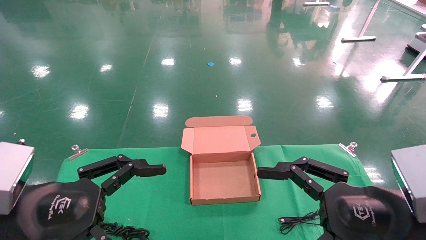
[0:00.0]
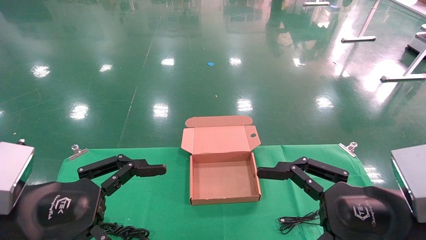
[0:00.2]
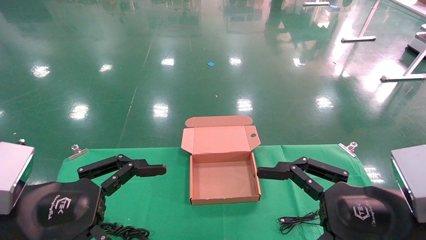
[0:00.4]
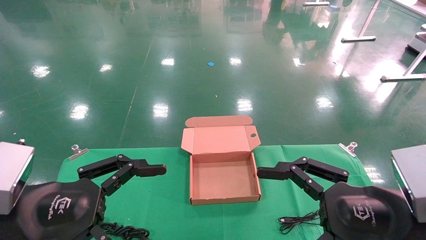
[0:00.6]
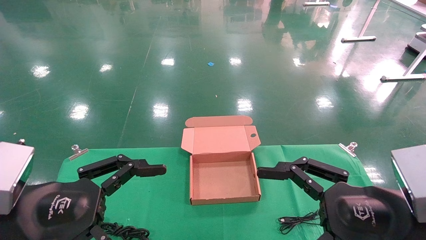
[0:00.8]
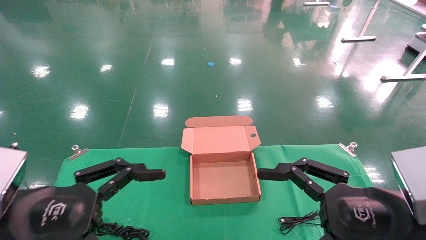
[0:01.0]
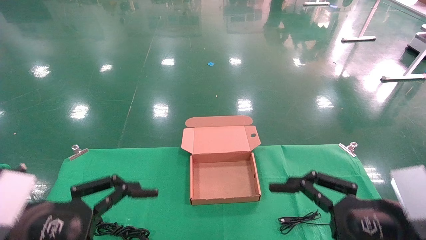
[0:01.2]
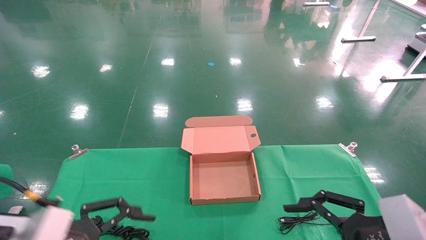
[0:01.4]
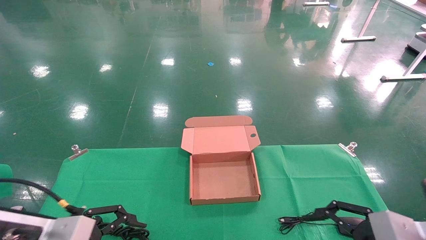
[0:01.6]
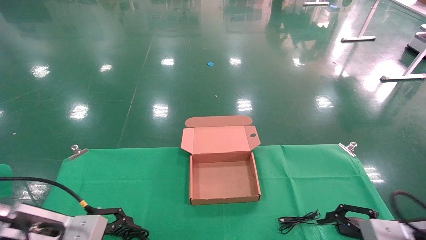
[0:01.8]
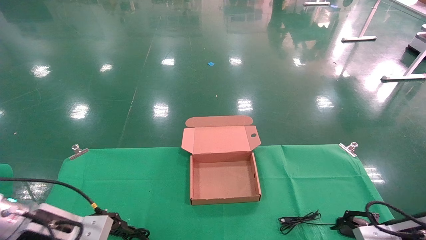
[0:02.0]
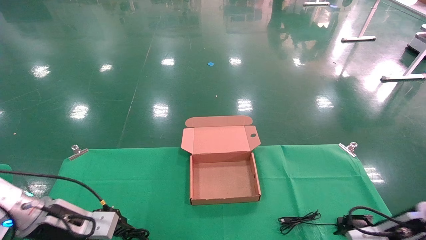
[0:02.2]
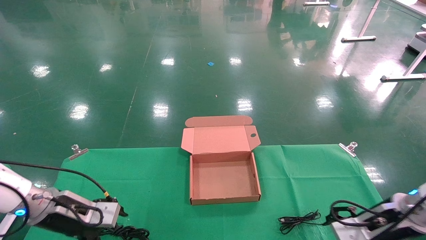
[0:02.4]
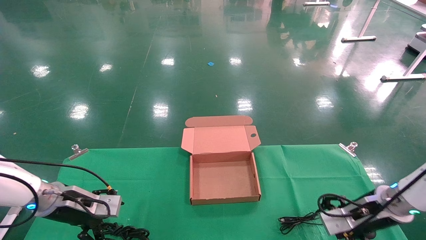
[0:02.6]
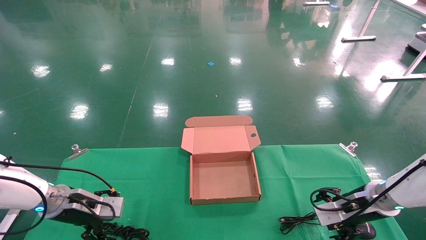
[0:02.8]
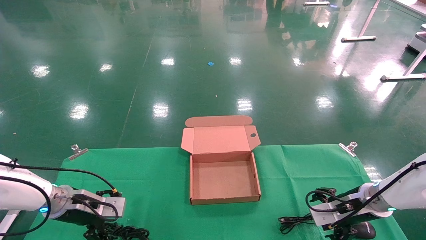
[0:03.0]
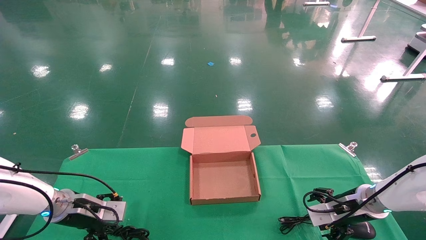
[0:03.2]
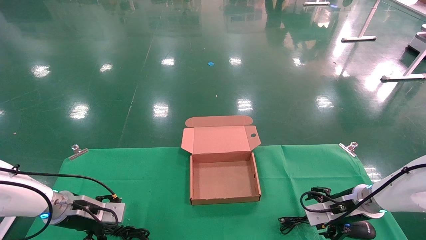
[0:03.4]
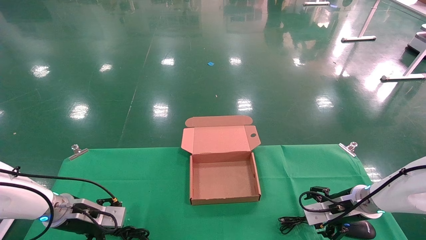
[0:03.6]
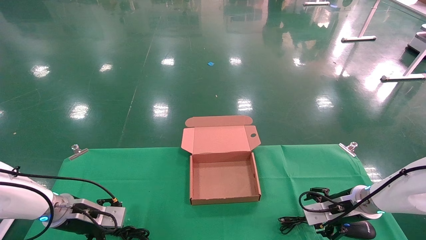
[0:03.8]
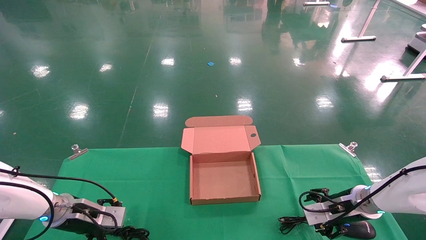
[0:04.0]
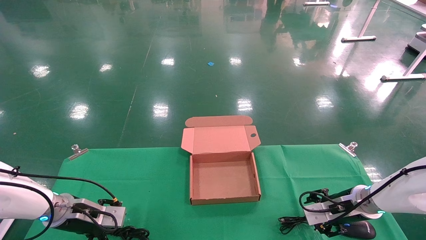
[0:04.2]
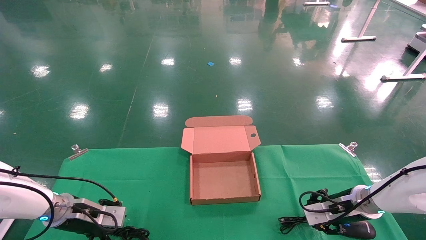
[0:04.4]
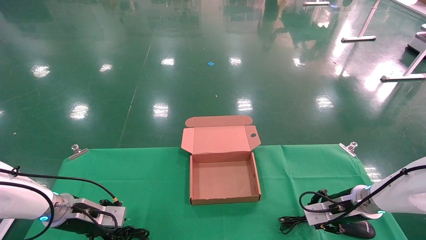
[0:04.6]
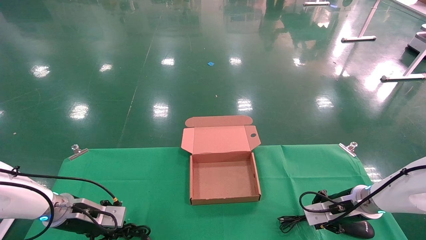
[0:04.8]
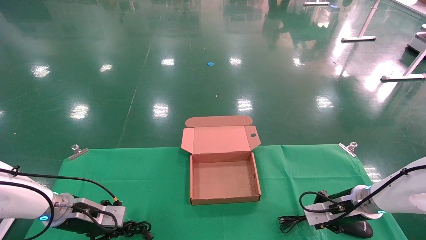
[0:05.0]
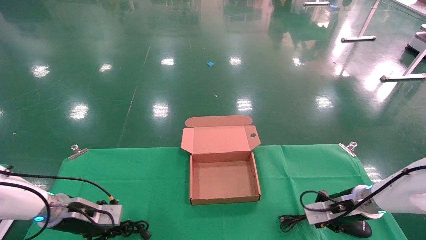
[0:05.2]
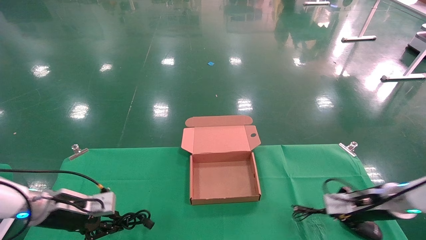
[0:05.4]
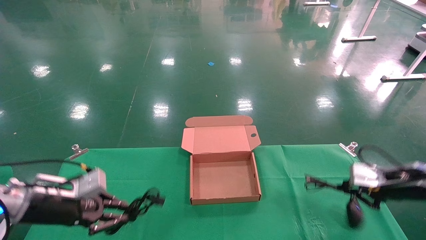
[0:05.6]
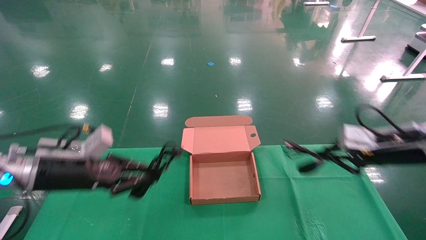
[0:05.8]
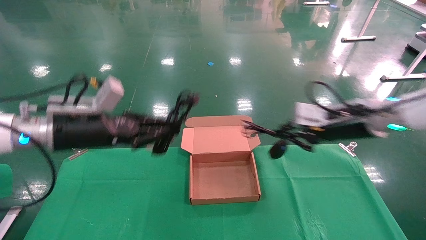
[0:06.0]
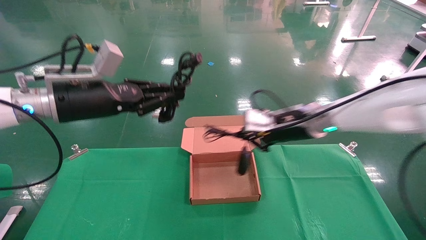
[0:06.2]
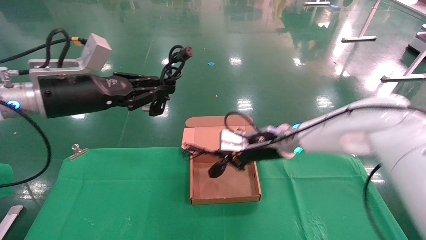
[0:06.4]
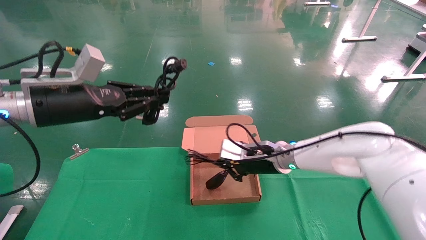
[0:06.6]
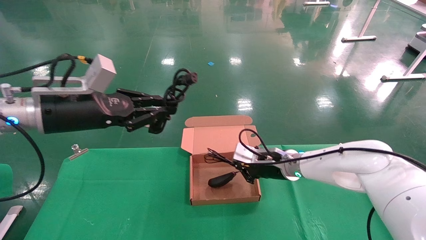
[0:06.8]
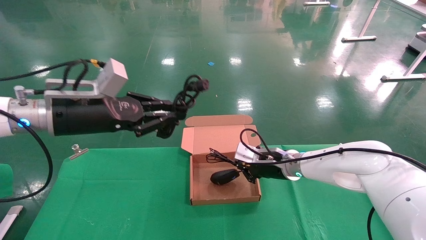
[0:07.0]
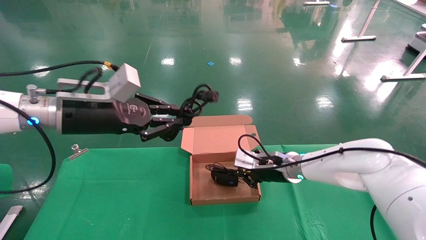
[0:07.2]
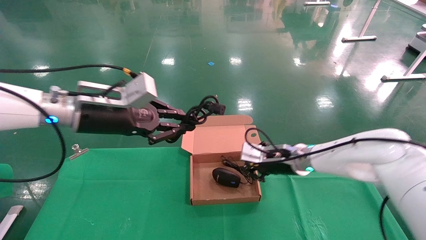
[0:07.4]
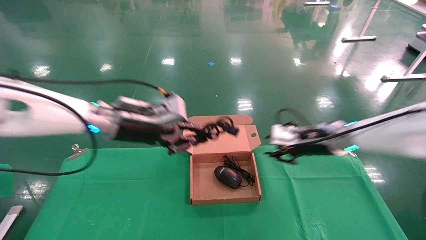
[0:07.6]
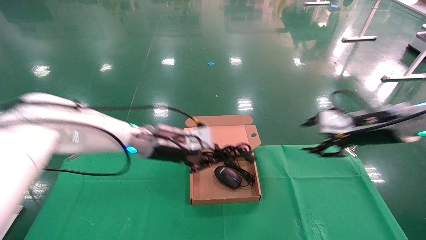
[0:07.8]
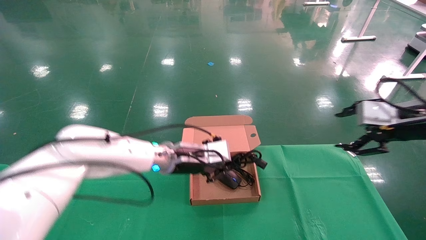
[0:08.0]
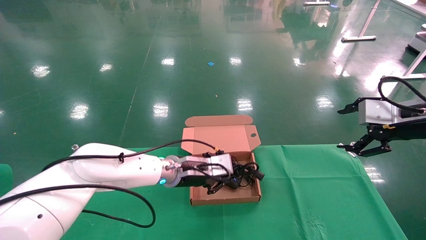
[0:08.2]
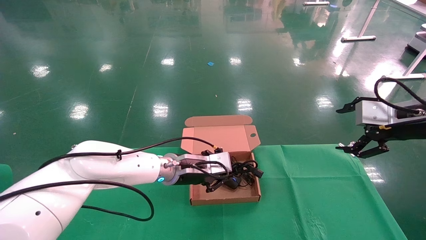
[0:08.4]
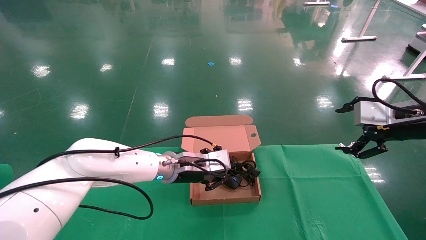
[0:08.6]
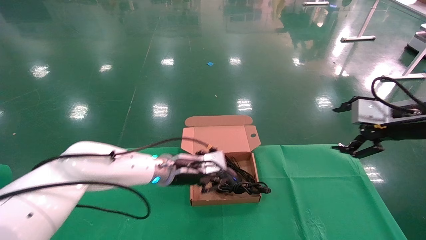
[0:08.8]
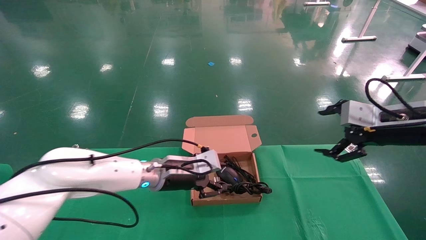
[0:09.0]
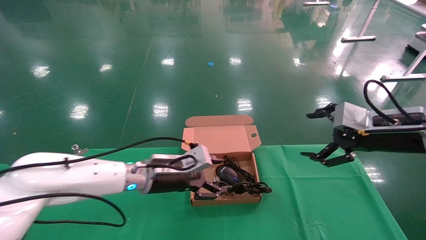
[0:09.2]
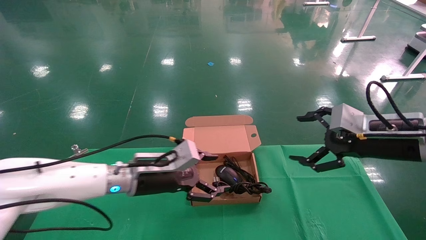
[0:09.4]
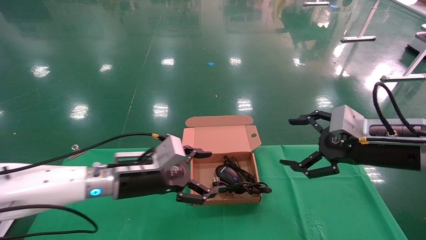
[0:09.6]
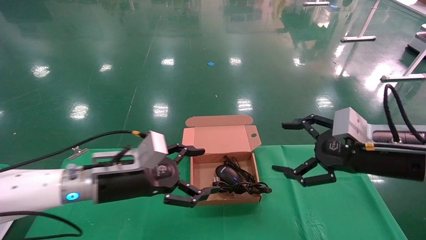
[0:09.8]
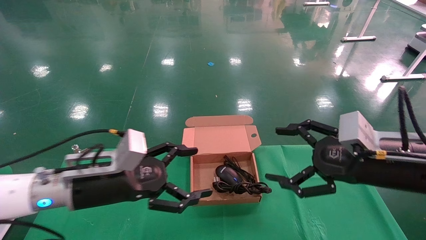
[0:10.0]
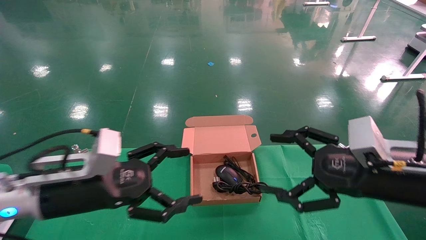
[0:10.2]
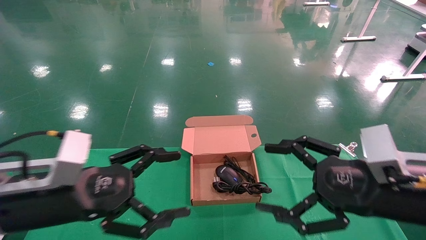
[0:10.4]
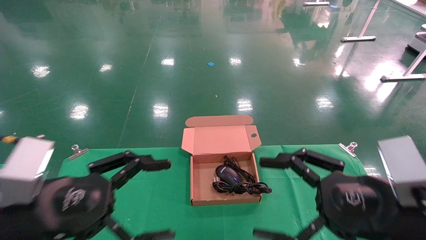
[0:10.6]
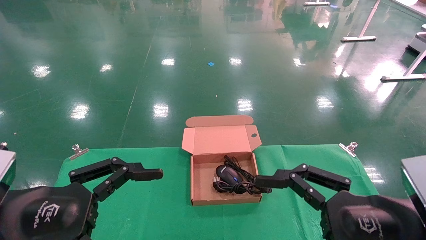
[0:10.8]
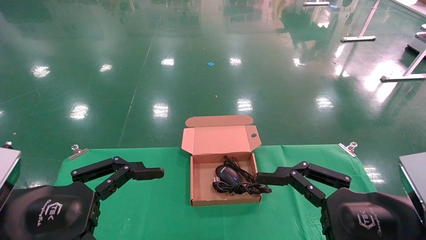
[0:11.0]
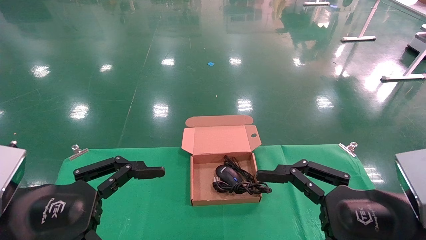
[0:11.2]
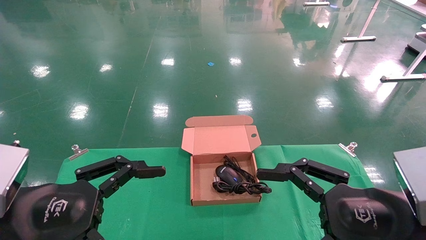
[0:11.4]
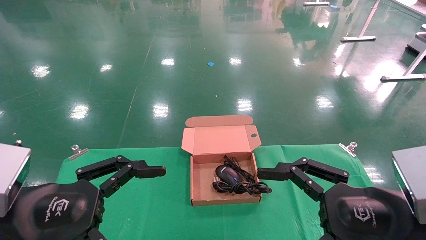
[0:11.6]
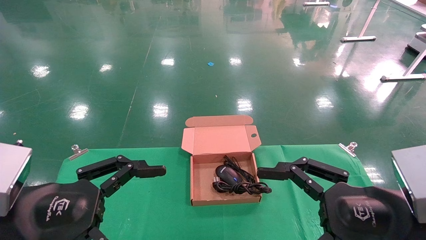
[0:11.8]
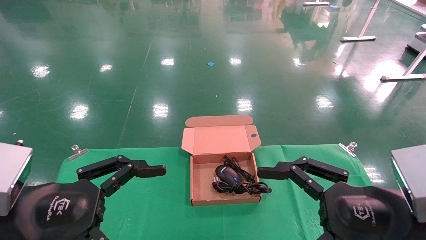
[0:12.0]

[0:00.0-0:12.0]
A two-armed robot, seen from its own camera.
Step, 0:01.2 to 0:05.0: Grab and lift both the mouse and power cord from the accessory packaging area at the same time.
Step, 0:05.2 to 0:08.4: Place the mouse and power cord into the box.
0:00.0 to 0:01.6: The right gripper shifts some 5 cm to the right; the left gripper goes some 5 cm downward.
0:01.6 to 0:03.0: The two grippers go roughly 20 cm forward and downward.
0:03.0 to 0:04.4: The right gripper closes its fingers.
0:04.4 to 0:06.0: Both grippers travel together upward, some 20 cm. The left gripper closes its fingers, while the right gripper closes up.
0:06.0 to 0:07.6: The left gripper shifts roughly 10 cm to the right, while the right gripper goes to the left and returns, about 10 cm each way.
0:07.6 to 0:09.0: The left gripper heads downward and to the right, covering approximately 15 cm, while the right gripper heads to the right and backward, covering approximately 10 cm, and opens its fingers.
0:09.0 to 0:10.4: The left gripper moves backward and to the left, approximately 25 cm, and opens its fingers, while the right gripper travels backward, to the left and downward by approximately 15 cm.
0:10.4 to 0:12.0: The left gripper is displaced backward by about 5 cm.

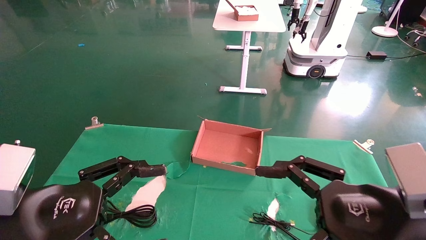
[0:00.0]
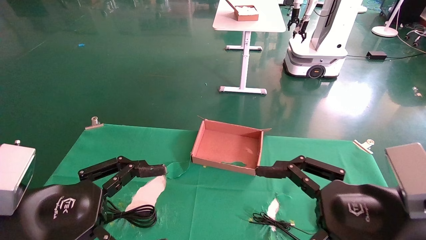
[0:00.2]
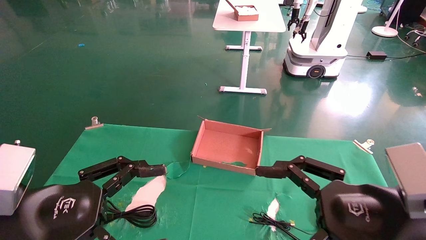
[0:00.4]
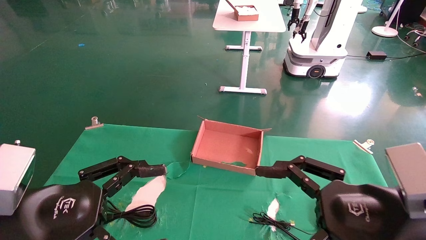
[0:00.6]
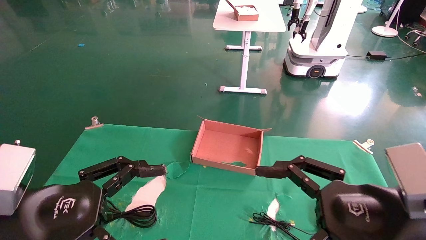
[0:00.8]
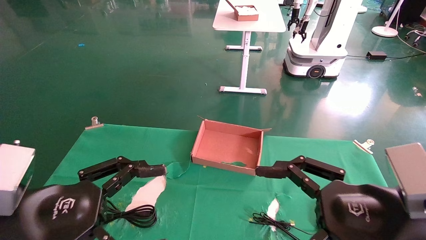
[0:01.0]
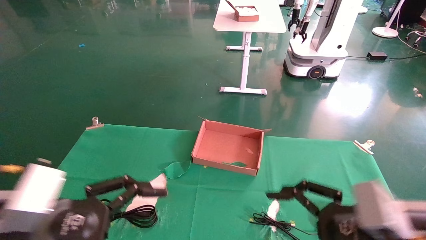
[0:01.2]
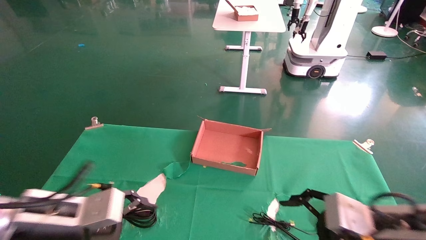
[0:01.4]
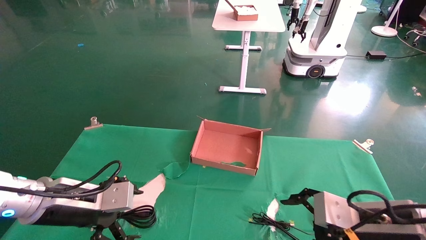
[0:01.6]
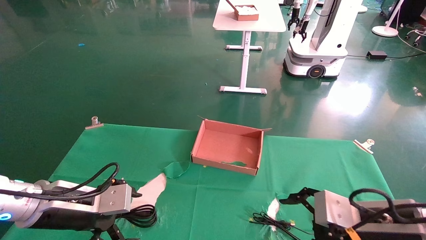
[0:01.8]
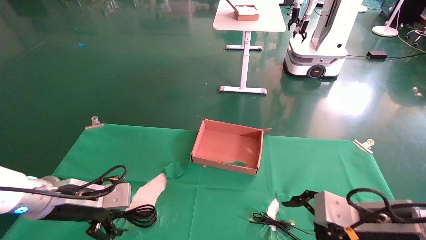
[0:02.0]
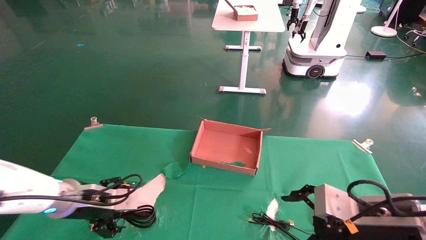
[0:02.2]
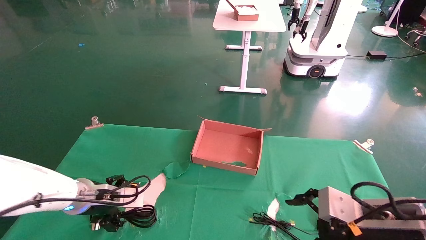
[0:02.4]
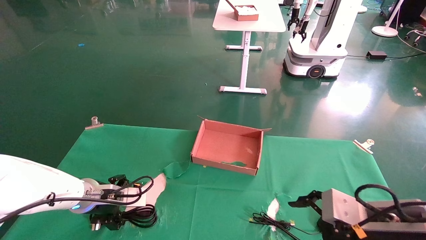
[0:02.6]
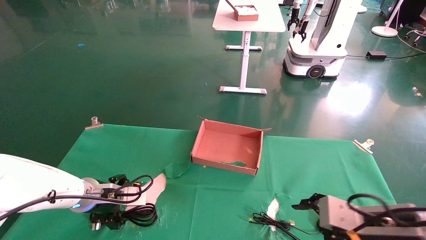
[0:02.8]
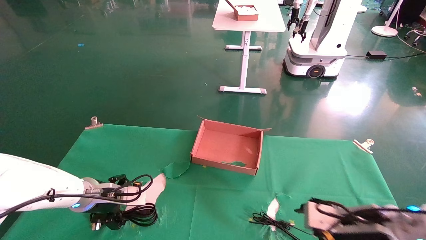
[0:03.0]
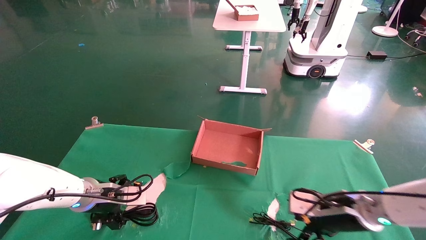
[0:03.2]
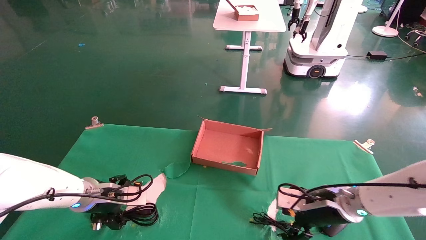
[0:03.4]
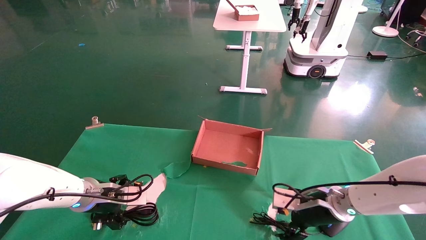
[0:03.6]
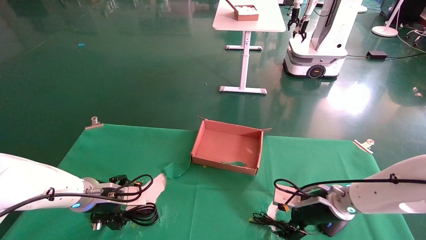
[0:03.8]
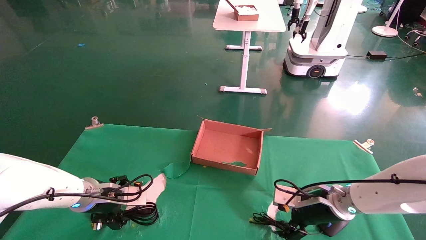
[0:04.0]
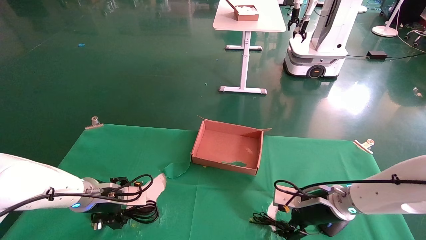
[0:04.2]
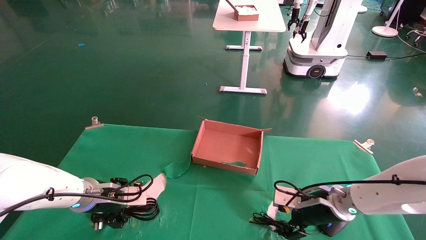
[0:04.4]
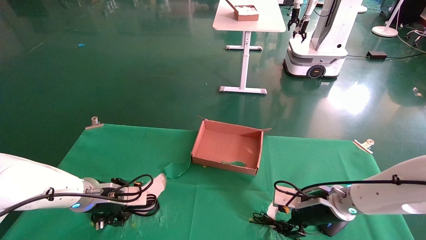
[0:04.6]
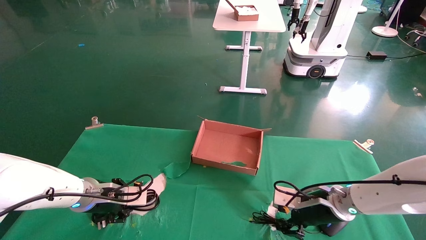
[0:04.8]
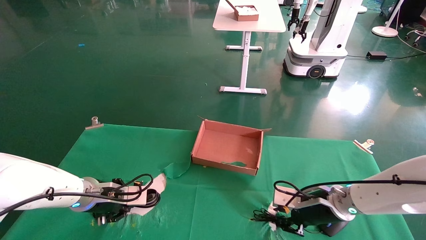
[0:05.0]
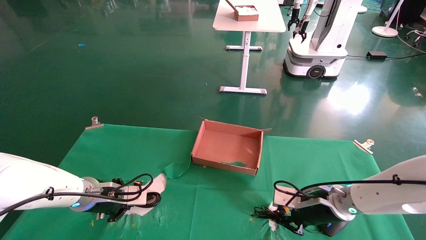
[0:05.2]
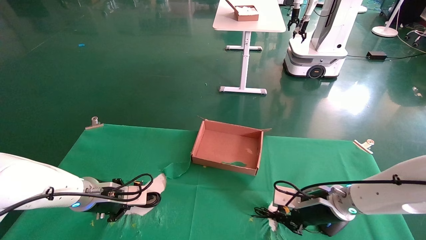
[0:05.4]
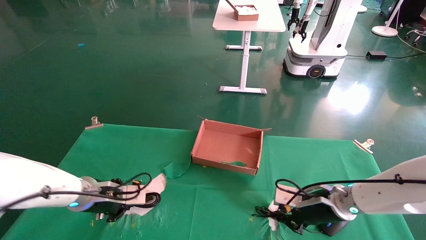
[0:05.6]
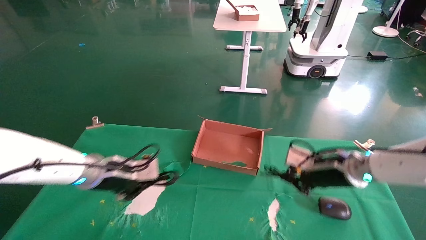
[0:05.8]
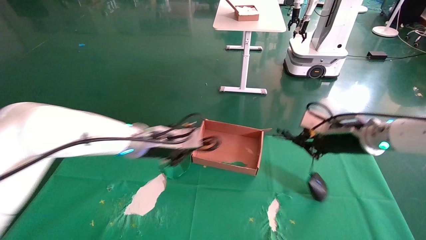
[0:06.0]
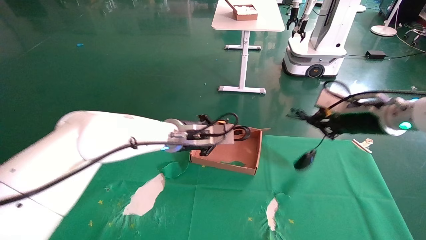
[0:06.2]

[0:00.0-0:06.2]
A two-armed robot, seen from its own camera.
Step, 0:01.4 to 0:05.8: Grab and lift both the mouse and power cord from the accessory packaging area at the same time.
0:00.0 to 0:01.6: The left gripper travels forward by approximately 10 cm. The right gripper moves forward and downward, some 10 cm.
0:01.6 to 0:03.2: The left gripper travels forward and downward by about 15 cm, while the right gripper is displaced forward by about 10 cm.
0:03.2 to 0:04.6: The left gripper closes its fingers, while the right gripper moves some 5 cm.
0:04.6 to 0:06.2: The right gripper moves upward and to the right, about 20 cm, and closes its fingers, while the left gripper goes roughly 20 cm to the right and upward, and closes.
